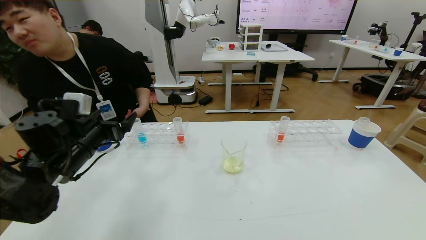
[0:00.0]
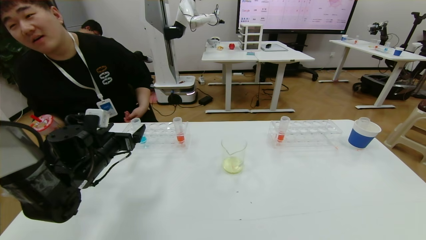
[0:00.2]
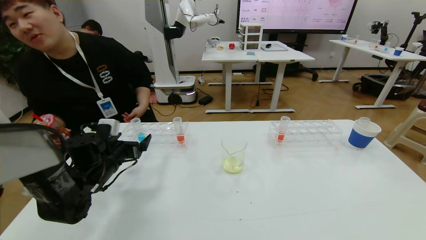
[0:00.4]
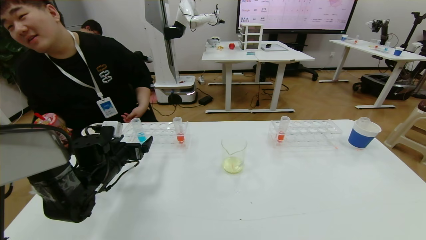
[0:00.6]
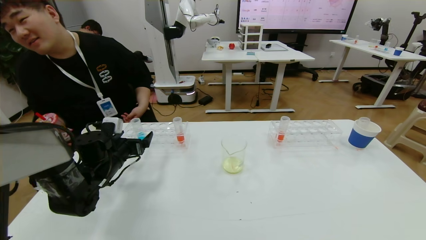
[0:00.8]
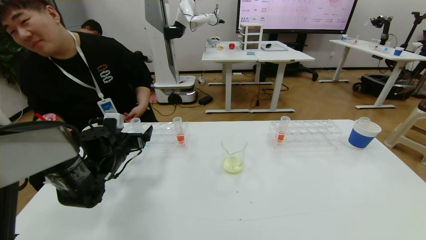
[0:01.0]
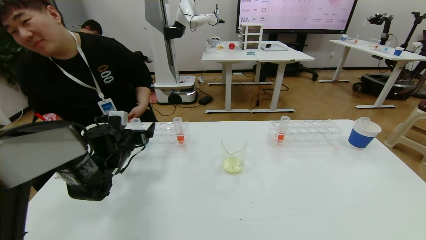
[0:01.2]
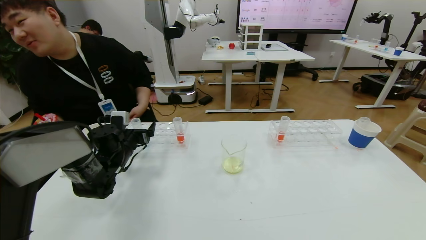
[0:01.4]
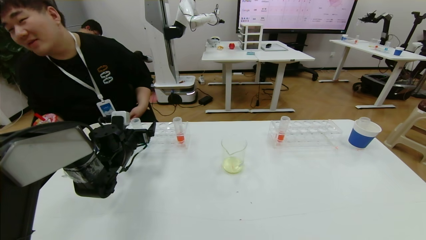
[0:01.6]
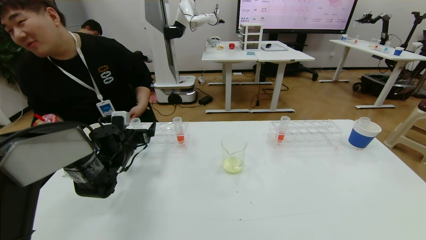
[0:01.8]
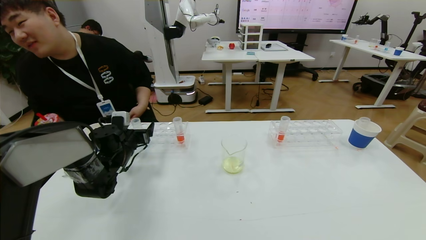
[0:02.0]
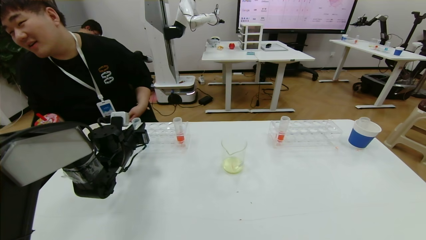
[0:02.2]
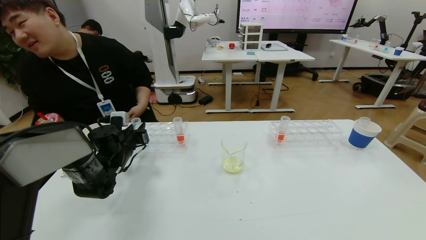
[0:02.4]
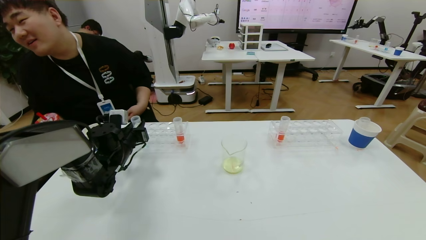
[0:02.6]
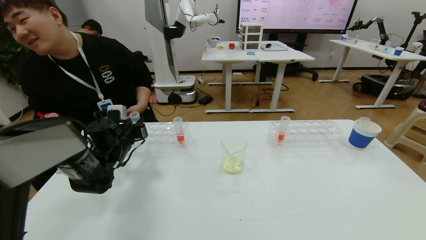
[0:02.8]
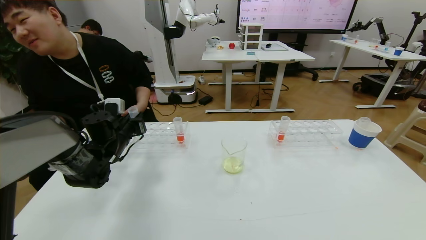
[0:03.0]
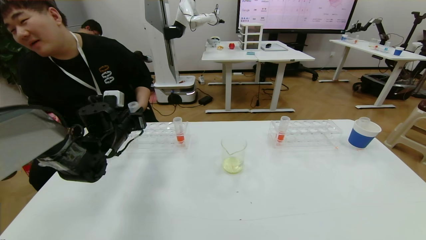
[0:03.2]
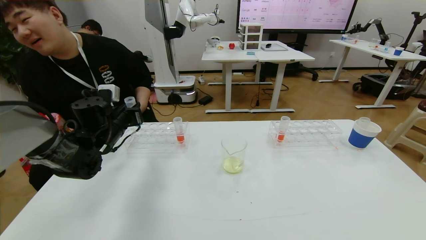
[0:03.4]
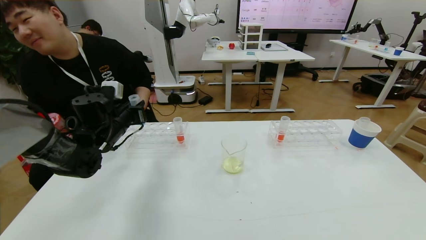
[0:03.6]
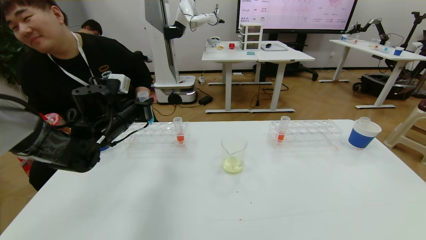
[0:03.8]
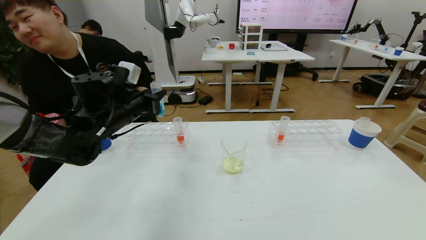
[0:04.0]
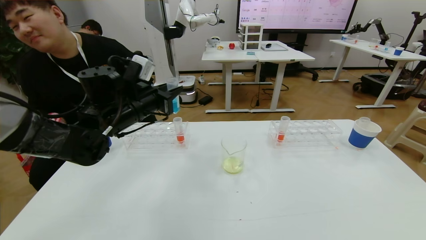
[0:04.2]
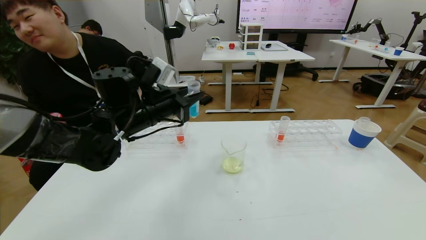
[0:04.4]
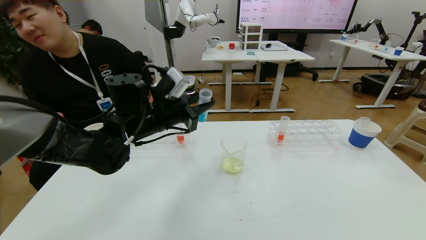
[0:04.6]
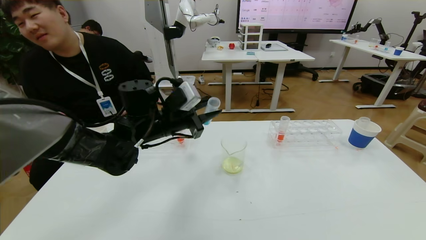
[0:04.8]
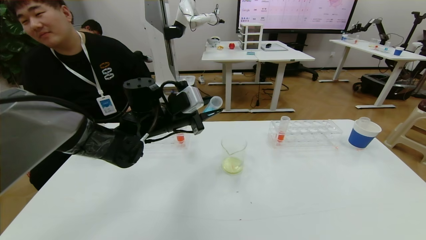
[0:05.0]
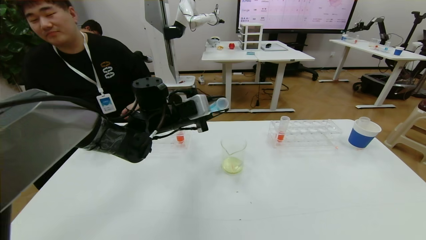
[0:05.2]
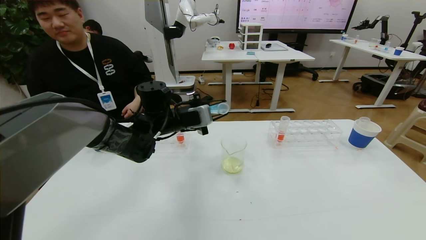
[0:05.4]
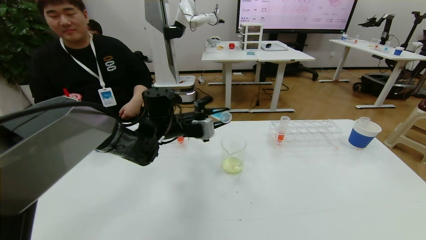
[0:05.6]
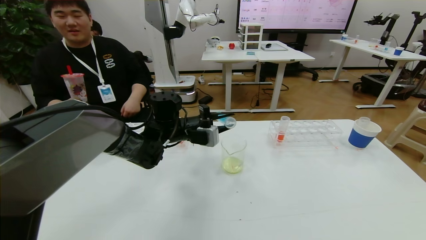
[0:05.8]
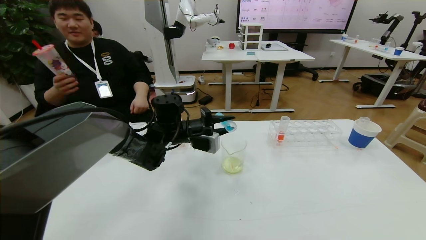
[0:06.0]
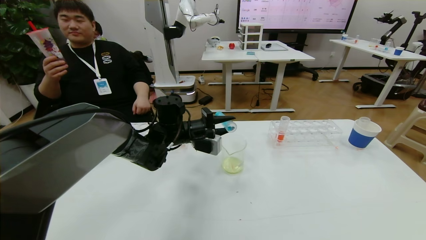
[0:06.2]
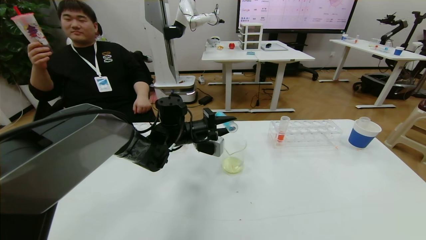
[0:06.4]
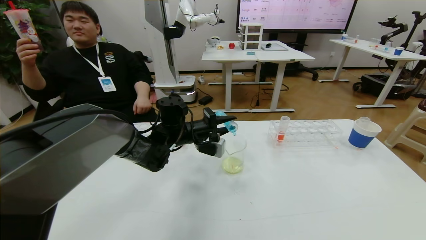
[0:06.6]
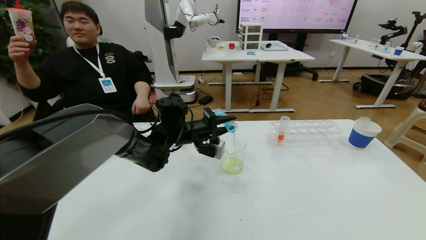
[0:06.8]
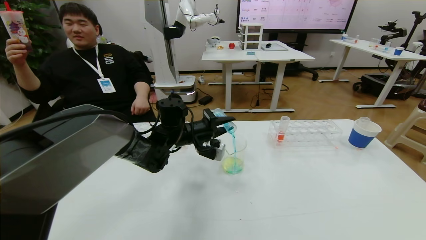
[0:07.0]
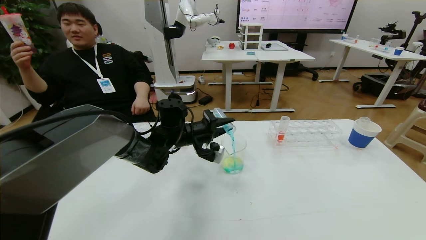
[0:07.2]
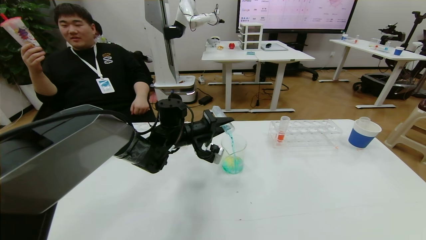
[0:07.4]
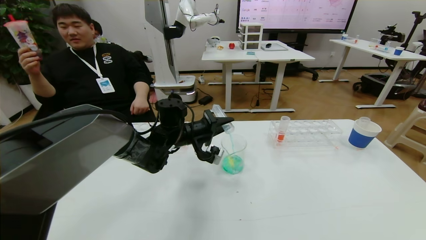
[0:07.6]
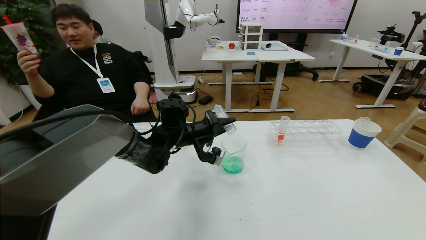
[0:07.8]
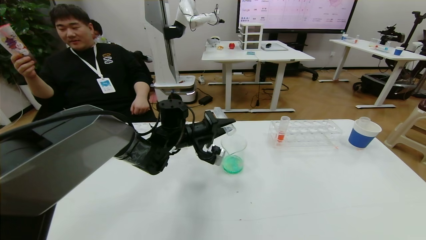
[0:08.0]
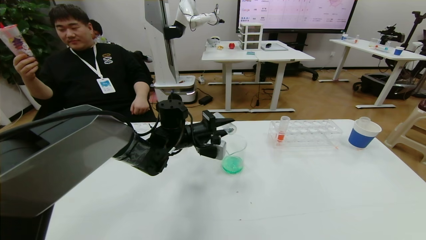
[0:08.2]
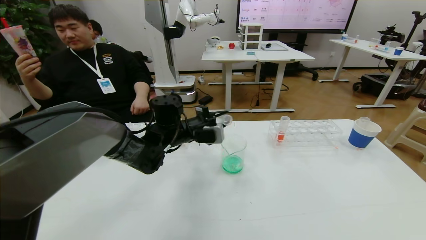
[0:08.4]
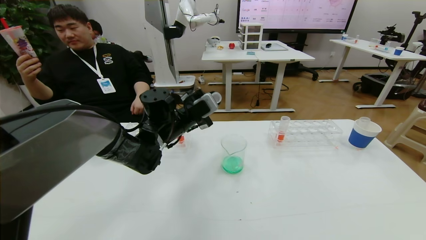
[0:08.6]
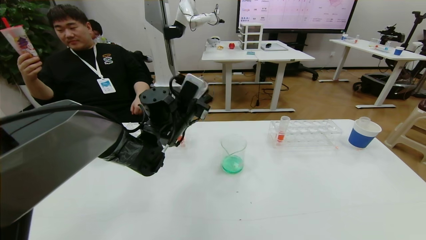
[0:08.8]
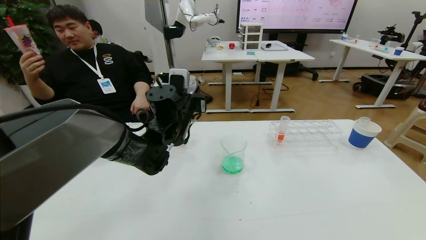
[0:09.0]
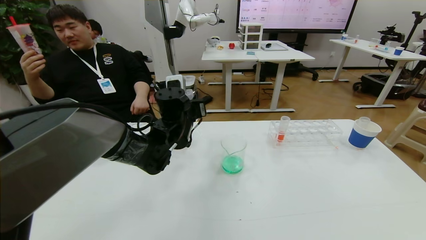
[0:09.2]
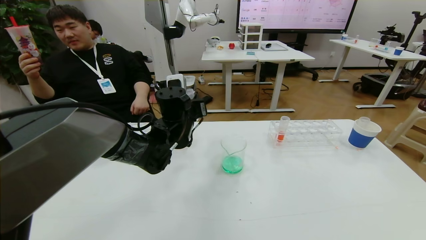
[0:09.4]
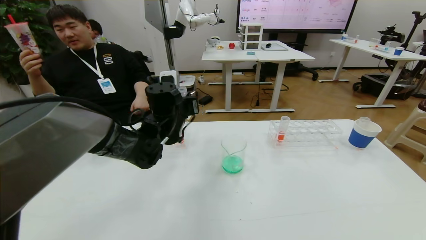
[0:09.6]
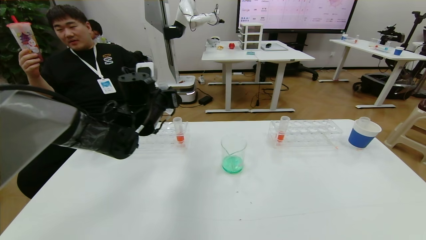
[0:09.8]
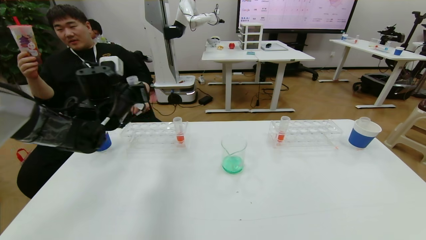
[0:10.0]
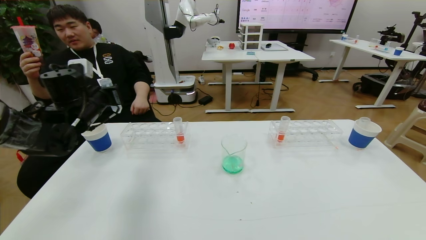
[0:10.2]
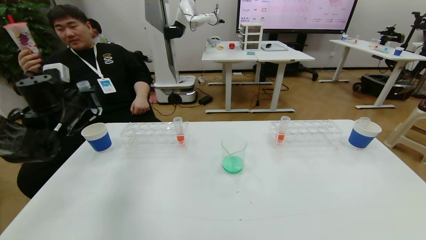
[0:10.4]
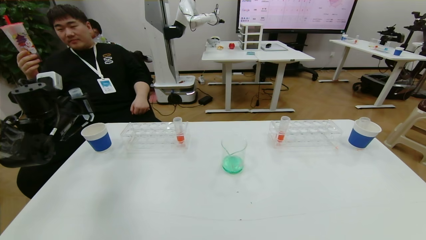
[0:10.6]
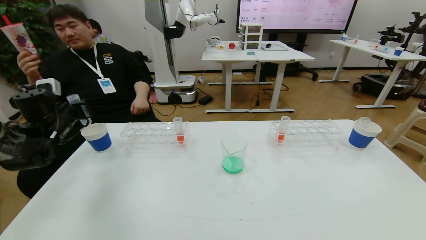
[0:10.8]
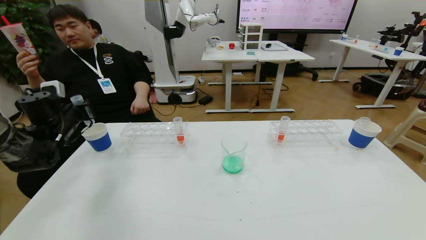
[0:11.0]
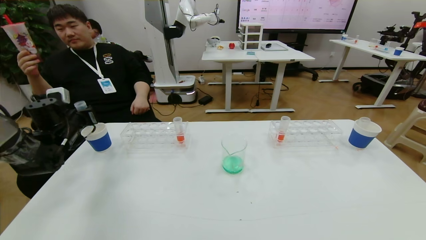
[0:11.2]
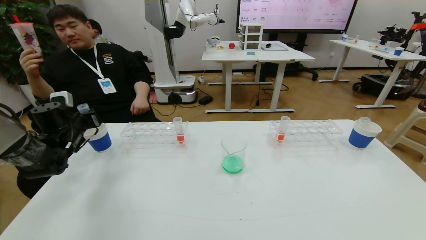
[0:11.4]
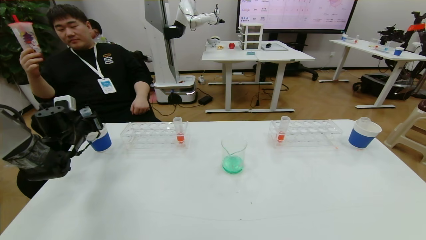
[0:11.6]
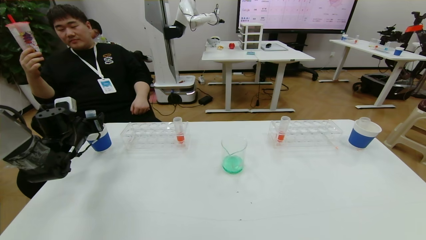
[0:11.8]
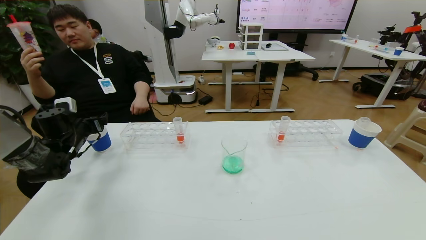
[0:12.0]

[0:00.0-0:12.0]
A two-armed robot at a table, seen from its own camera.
Task of the whole recording: pick up the test tube with yellow pigment and the test tube with blue pigment by grippers and pour them into the beaker.
0:00.0 to 0:01.6: The left gripper shifts approximately 15 cm forward and downward.
0:01.6 to 0:03.0: The left gripper closes up.
0:03.0 to 0:04.4: The left gripper heads to the right, upward and backward, covering approximately 15 cm.
0:04.4 to 0:06.0: The left gripper moves downward, to the right and forward, about 10 cm.
0:07.6 to 0:09.0: The left gripper shifts some 5 cm upward.
0:09.0 to 0:10.4: The left gripper moves to the left, roughly 25 cm.
0:10.4 to 0:12.0: The left gripper travels downward by roughly 10 cm, and opens.

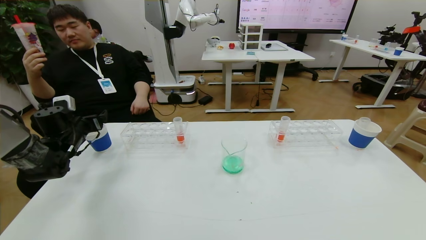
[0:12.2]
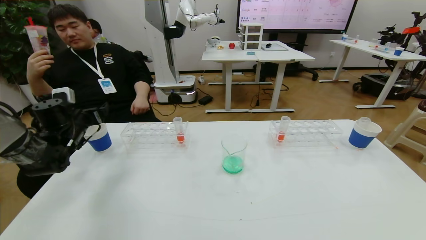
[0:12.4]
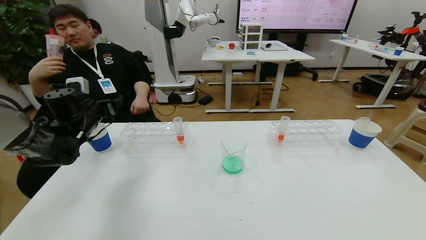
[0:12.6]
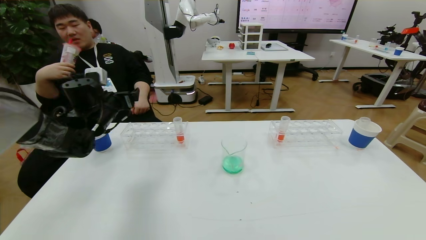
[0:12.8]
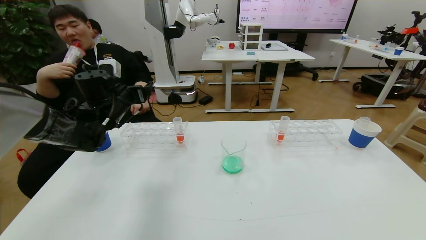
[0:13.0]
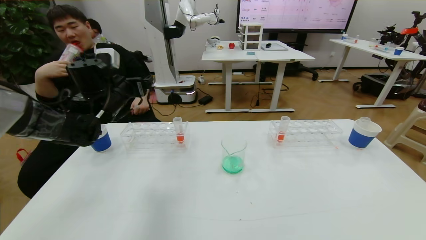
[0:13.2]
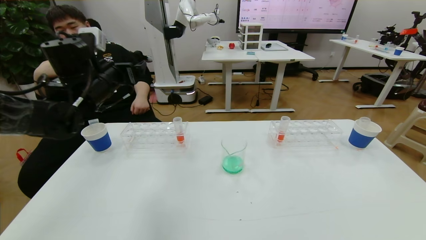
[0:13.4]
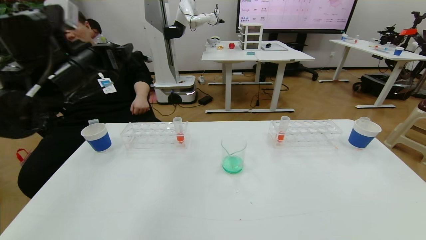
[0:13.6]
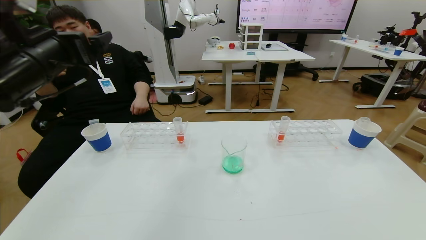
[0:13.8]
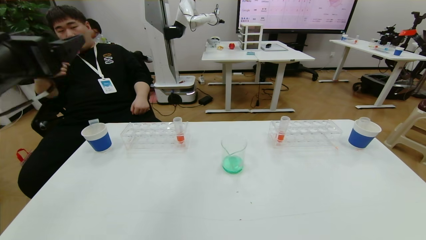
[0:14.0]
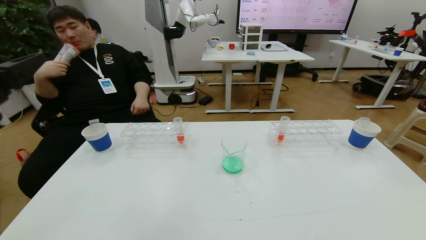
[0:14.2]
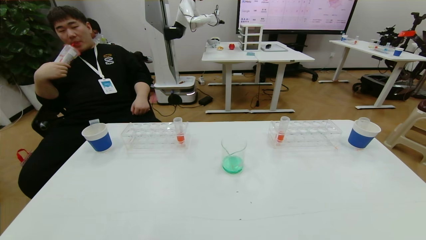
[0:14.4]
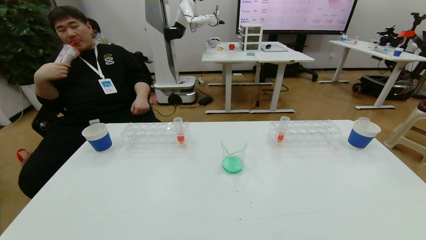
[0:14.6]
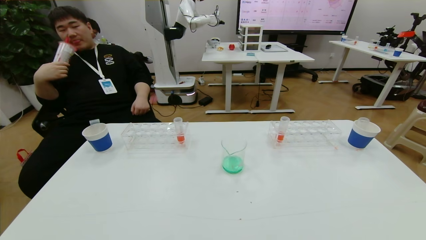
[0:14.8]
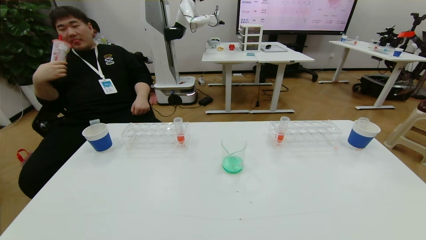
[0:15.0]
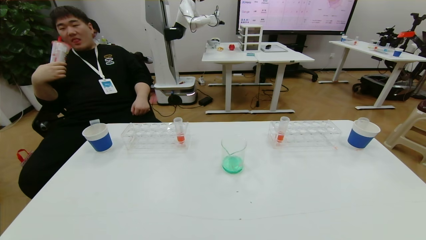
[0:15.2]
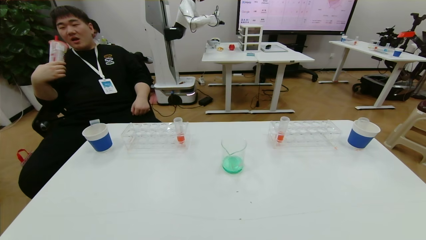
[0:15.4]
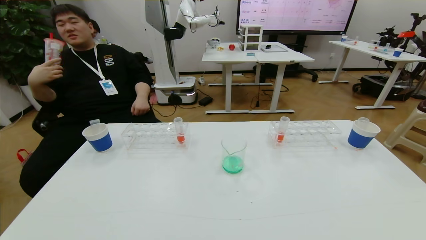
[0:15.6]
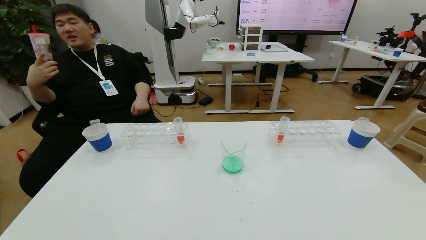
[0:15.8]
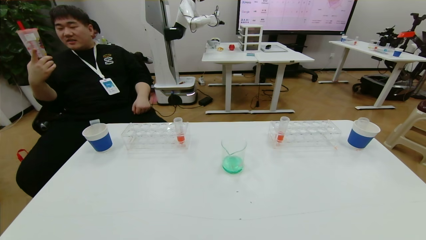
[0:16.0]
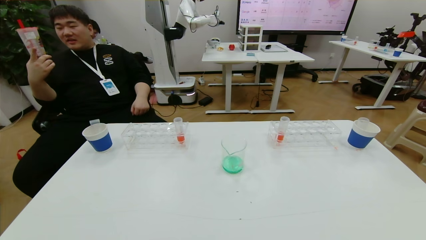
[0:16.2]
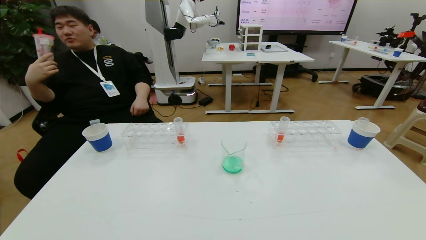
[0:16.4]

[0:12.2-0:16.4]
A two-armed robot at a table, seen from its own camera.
Task of the whole recording: pick up the test tube with yellow pigment and the test tube with blue pigment by grippers and pour them into the beaker.
0:12.2 to 0:13.6: The left gripper travels upward, to the right and backward by roughly 25 cm.
0:13.6 to 0:15.0: The left gripper travels backward by about 35 cm.
0:15.0 to 0:16.4: The left gripper is displaced downward by approximately 15 cm.
